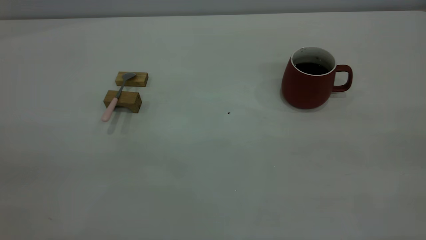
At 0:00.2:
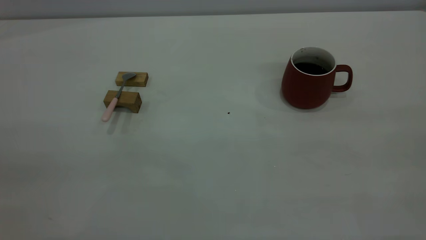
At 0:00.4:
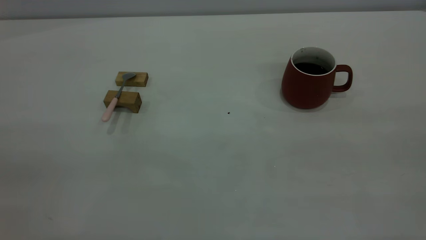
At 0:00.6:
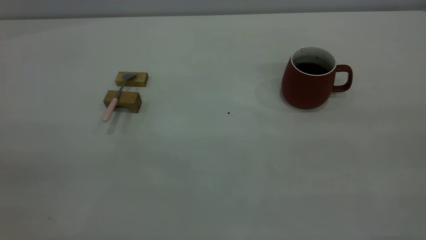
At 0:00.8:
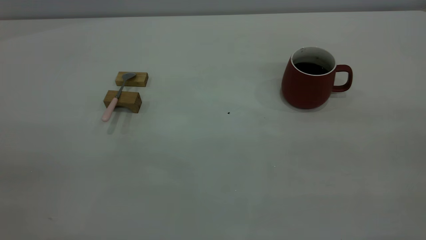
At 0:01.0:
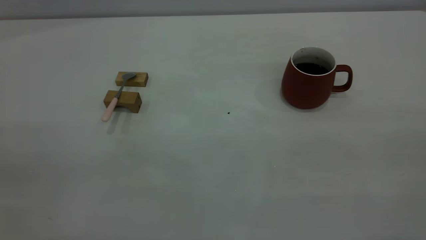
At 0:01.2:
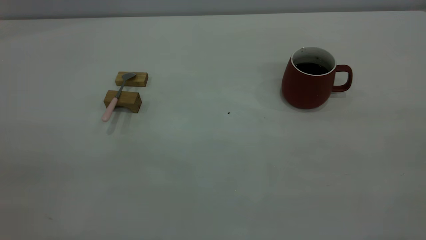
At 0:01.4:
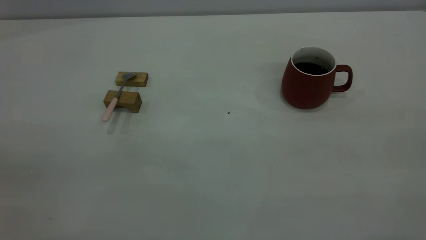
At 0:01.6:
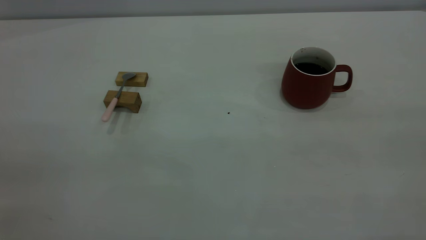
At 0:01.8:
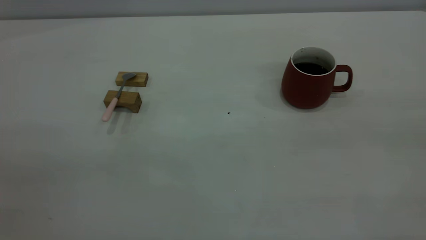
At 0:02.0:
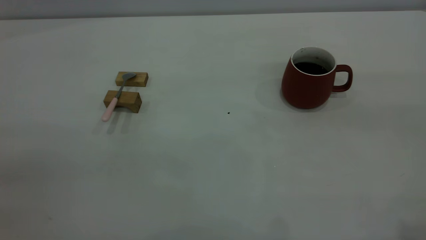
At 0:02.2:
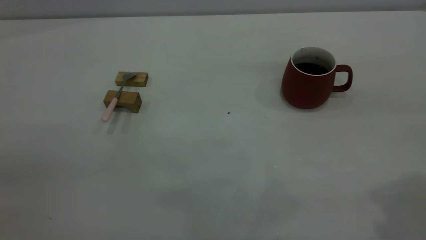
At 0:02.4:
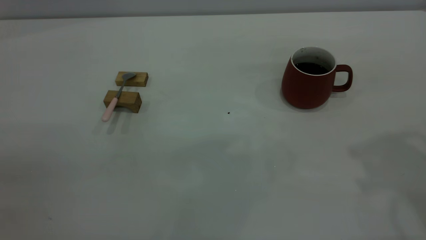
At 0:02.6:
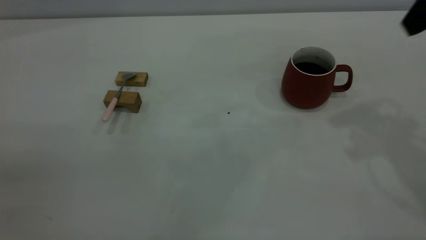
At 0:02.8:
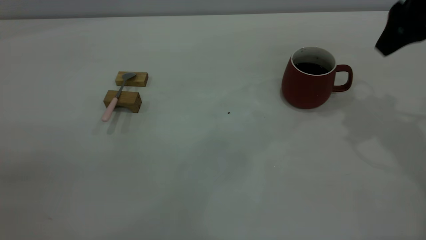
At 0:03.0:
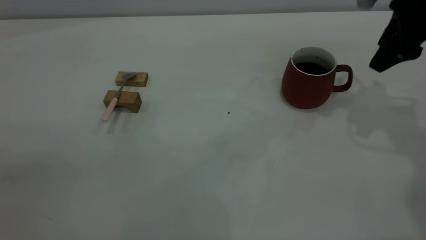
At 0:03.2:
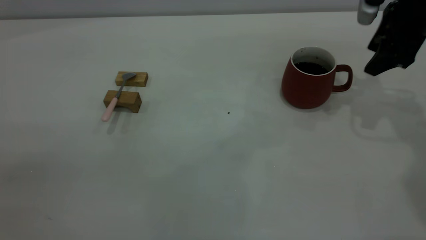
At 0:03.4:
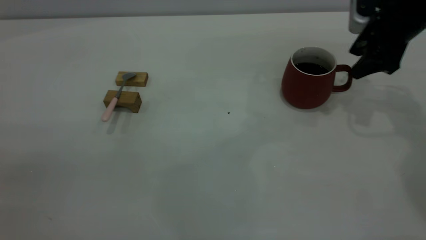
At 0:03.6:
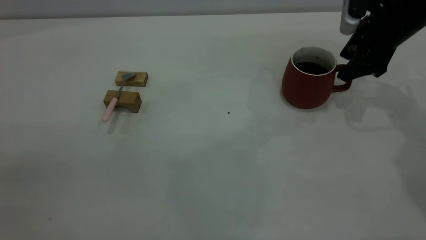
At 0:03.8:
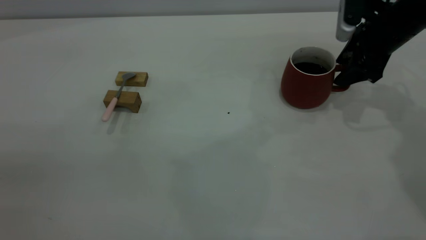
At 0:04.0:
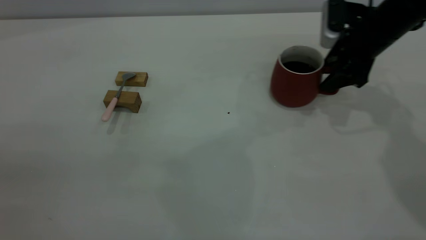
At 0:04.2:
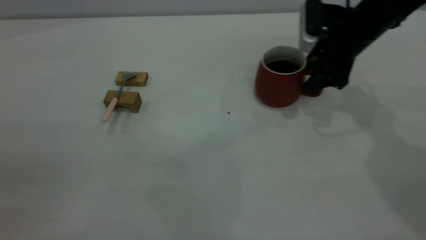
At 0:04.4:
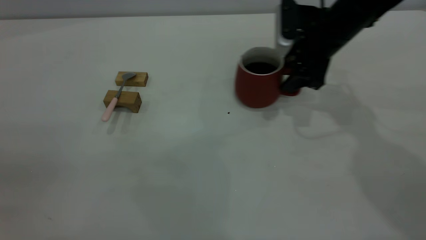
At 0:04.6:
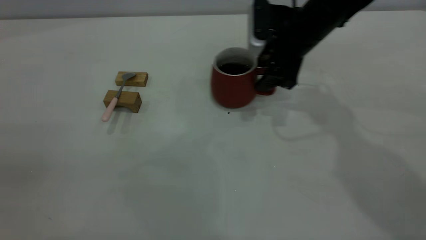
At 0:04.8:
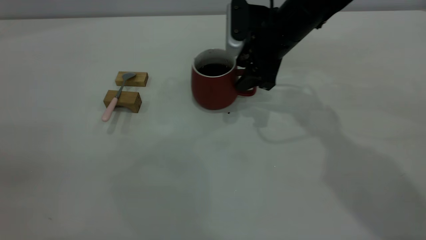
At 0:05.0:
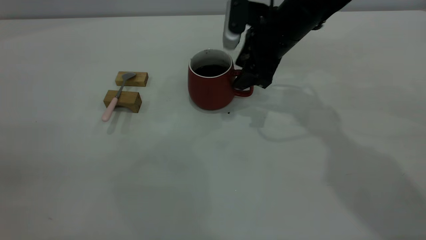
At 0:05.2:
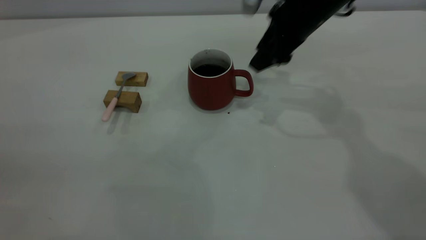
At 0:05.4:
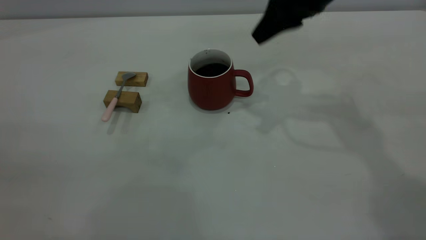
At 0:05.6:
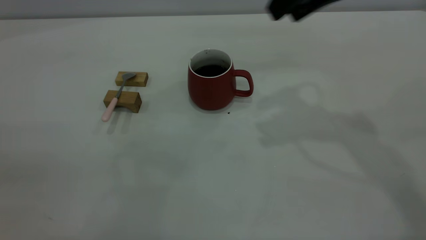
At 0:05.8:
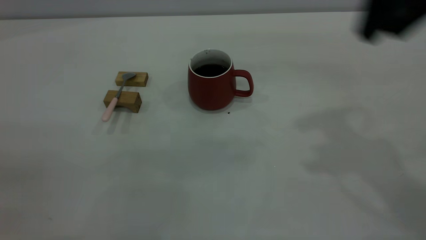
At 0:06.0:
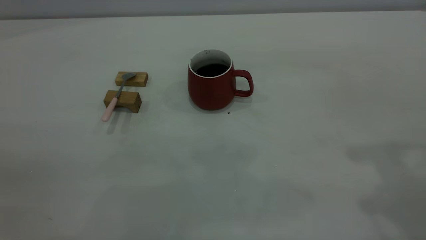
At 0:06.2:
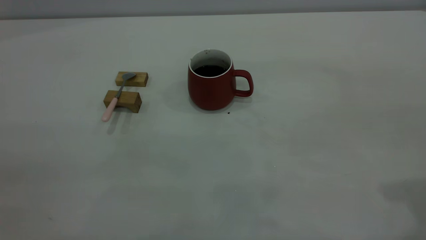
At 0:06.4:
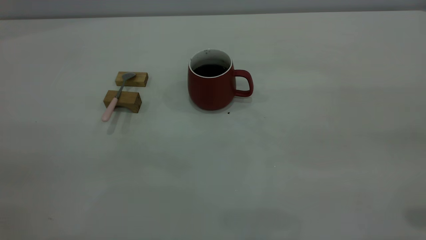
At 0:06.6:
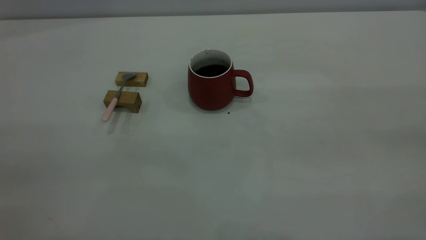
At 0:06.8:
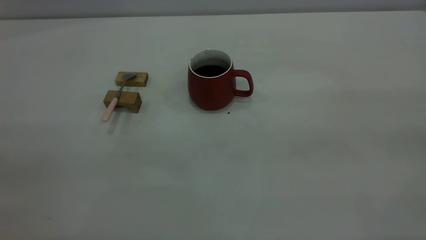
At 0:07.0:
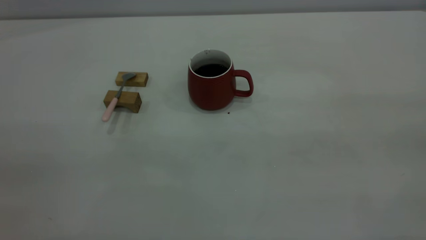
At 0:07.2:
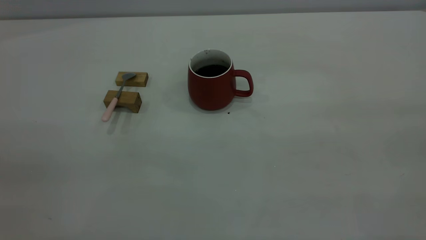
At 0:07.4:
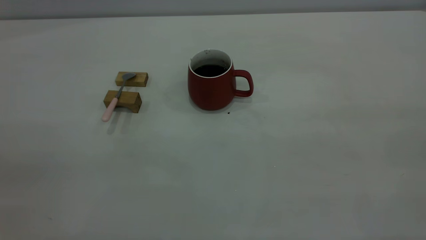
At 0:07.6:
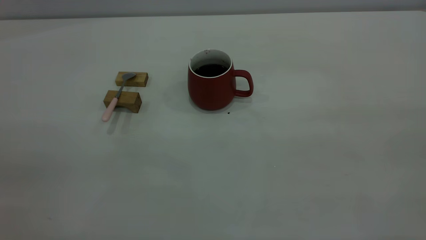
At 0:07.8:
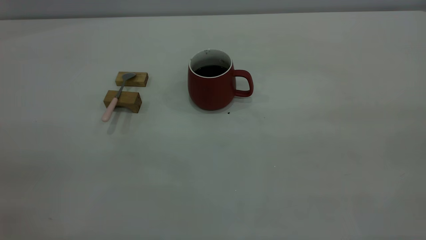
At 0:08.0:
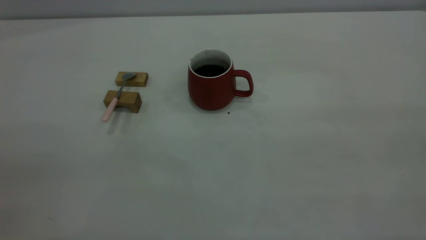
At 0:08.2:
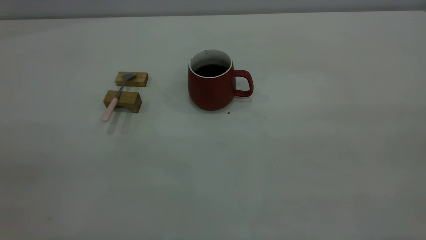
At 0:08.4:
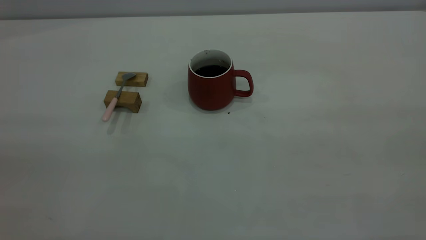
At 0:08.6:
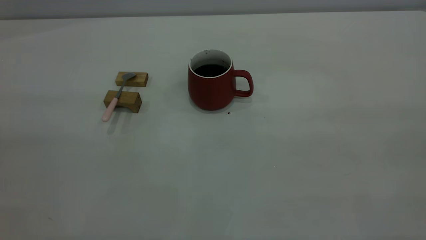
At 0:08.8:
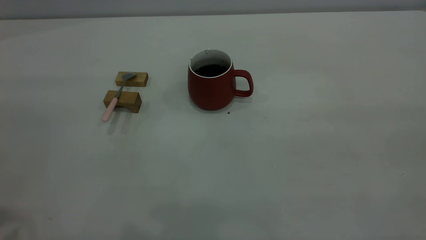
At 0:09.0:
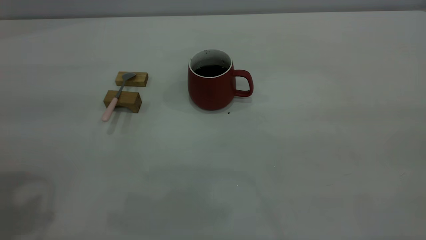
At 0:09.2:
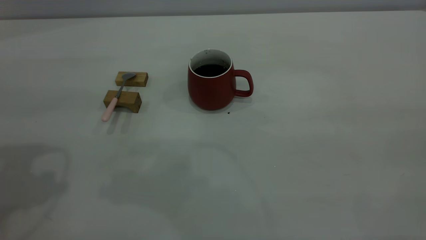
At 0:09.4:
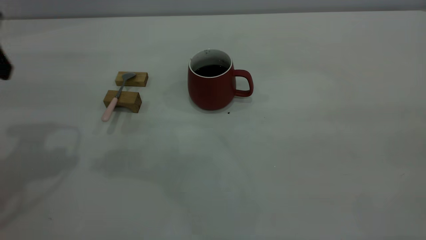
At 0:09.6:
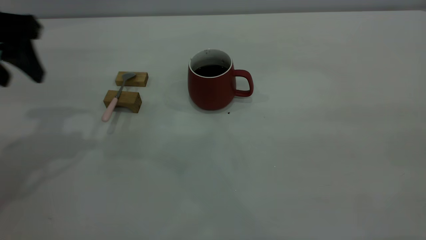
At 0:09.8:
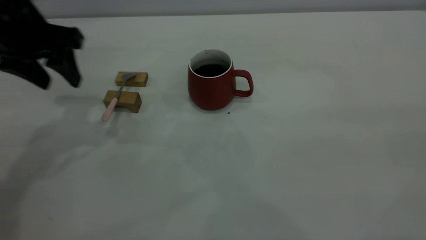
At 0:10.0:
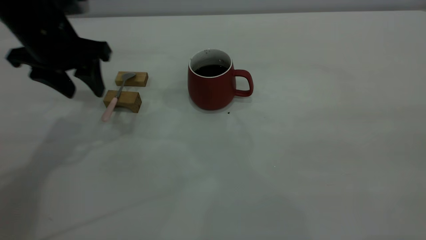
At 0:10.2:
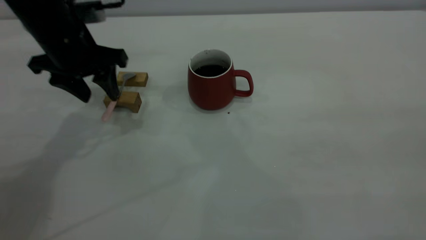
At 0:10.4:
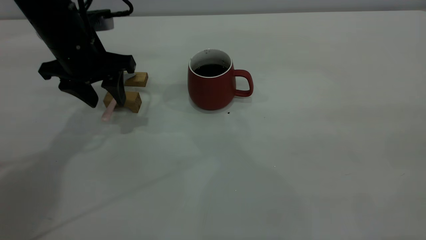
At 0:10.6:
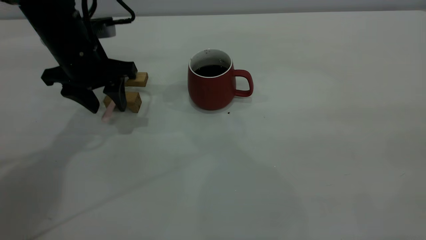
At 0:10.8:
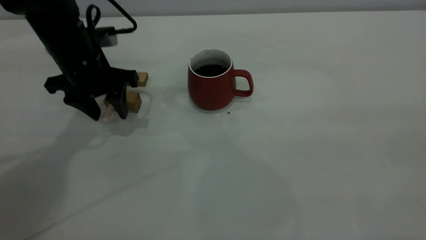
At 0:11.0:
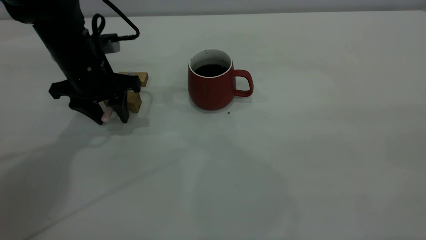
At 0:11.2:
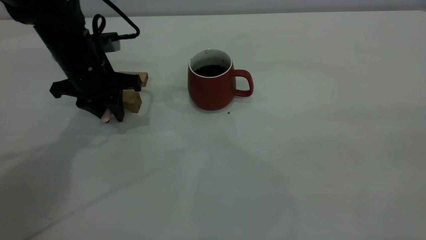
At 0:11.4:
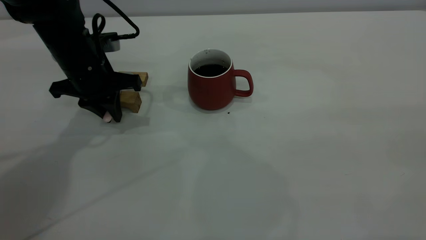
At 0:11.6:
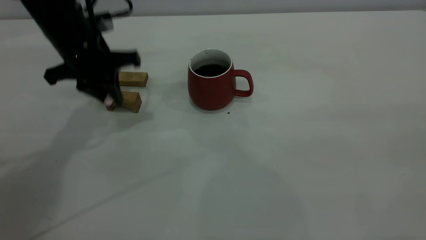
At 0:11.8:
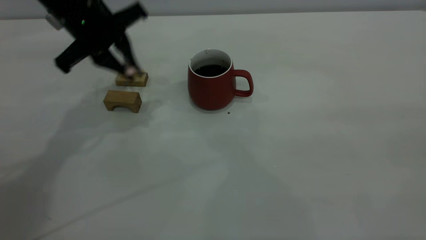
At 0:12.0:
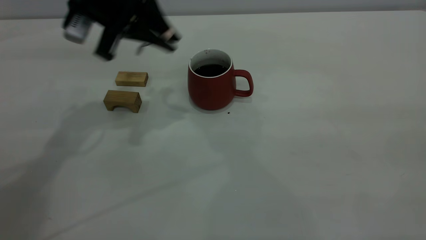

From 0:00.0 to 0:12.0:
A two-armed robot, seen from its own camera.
Step, from 0:00.0 to 0:05.2: Move the cup with coffee to the center of view.
Step, from 0:05.4 to 0:11.6: Pick up the spoon.
From 0:01.6 to 0:03.0: The right gripper moves forward and downward, about 40 cm.
From 0:03.0 to 0:04.4: The right gripper shifts approximately 15 cm to the left and downward.
From 0:04.4 to 0:06.0: The right gripper goes about 30 cm backward and upward, and closes its fingers.
From 0:09.0 to 0:10.4: The left gripper is displaced forward, downward and to the right by some 30 cm.
From 0:10.4 to 0:12.0: The left gripper shifts about 10 cm upward, and closes.

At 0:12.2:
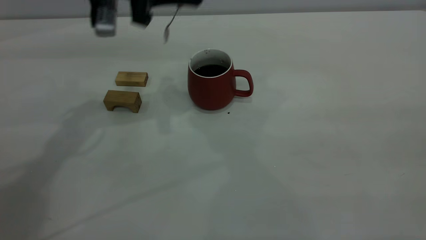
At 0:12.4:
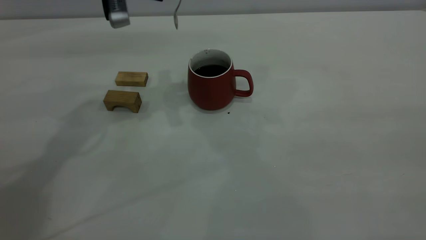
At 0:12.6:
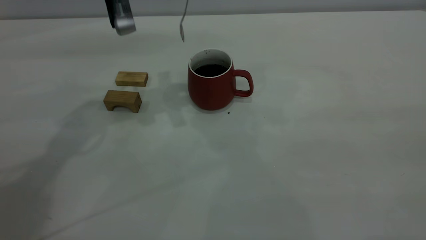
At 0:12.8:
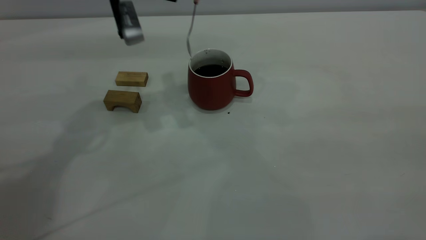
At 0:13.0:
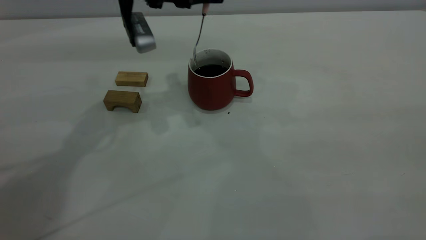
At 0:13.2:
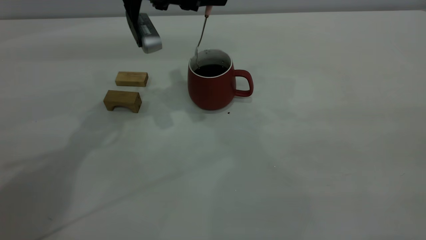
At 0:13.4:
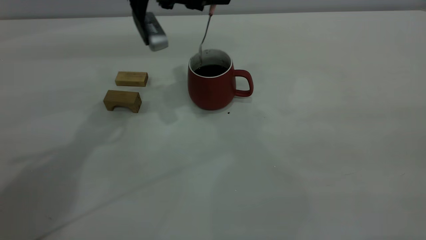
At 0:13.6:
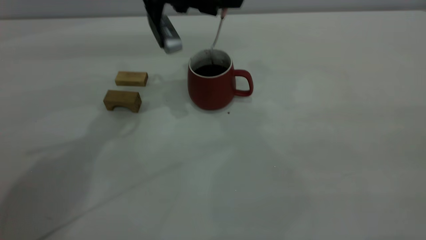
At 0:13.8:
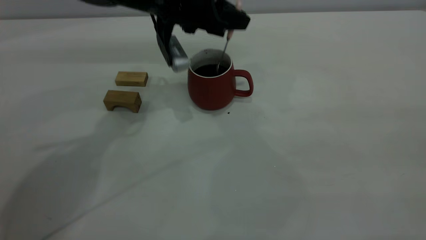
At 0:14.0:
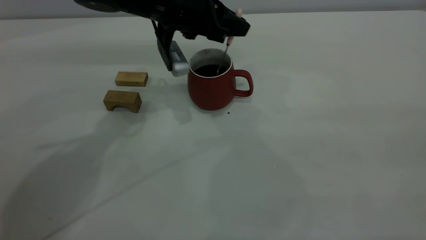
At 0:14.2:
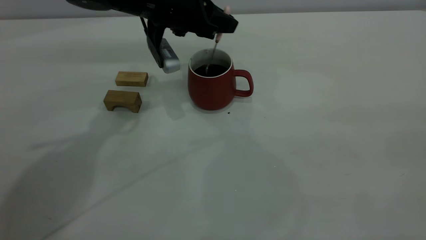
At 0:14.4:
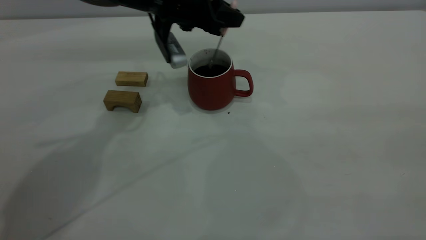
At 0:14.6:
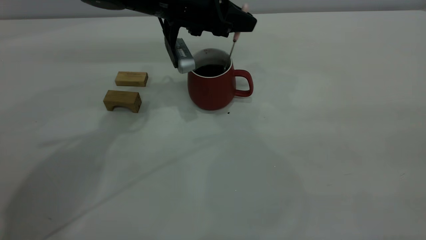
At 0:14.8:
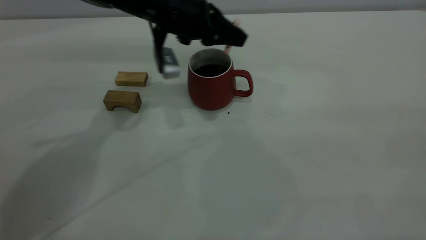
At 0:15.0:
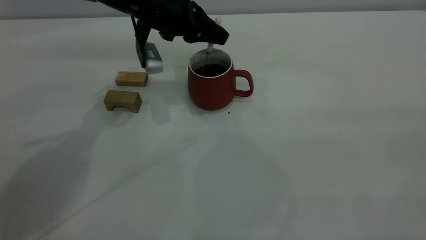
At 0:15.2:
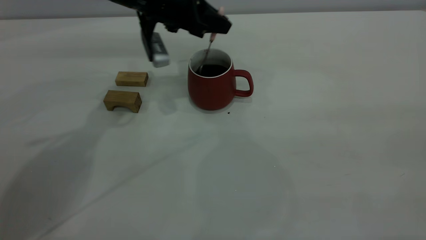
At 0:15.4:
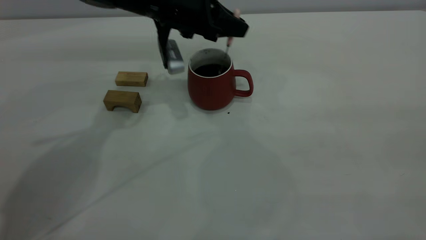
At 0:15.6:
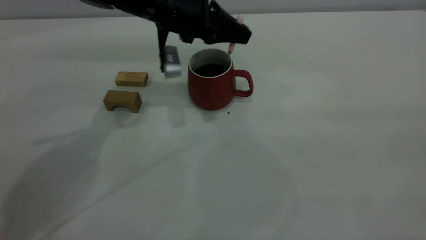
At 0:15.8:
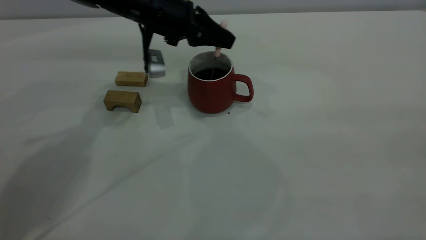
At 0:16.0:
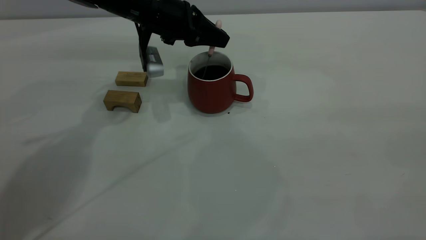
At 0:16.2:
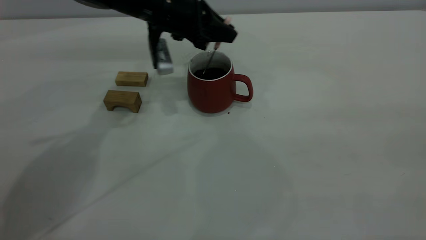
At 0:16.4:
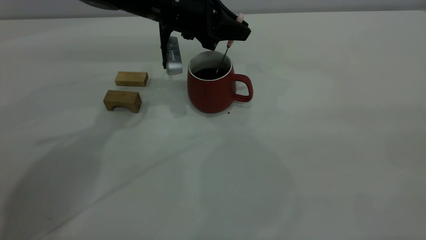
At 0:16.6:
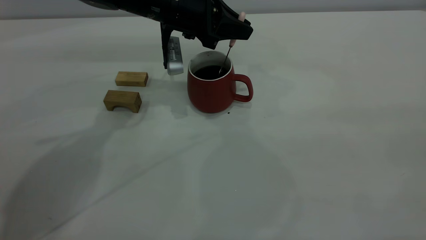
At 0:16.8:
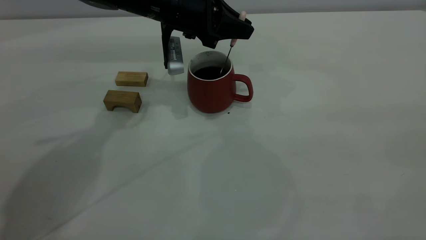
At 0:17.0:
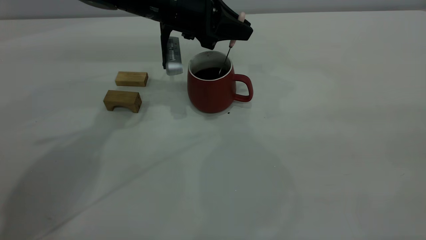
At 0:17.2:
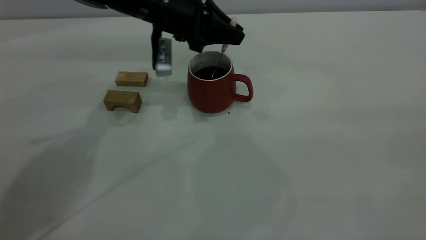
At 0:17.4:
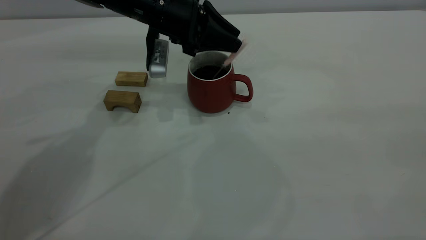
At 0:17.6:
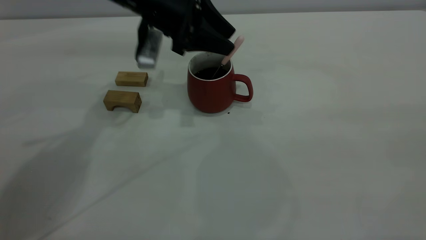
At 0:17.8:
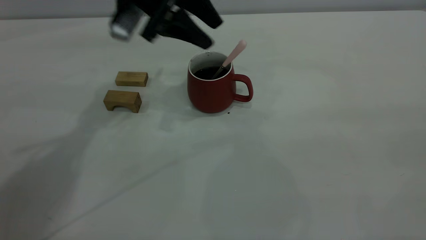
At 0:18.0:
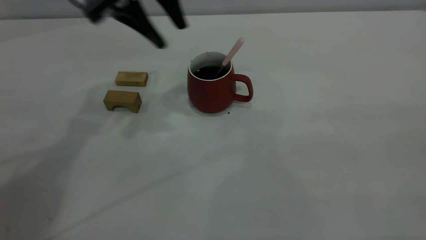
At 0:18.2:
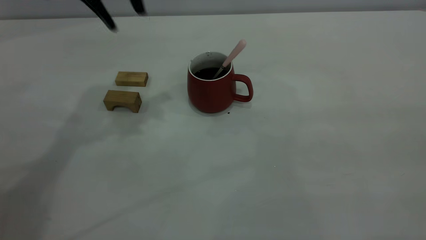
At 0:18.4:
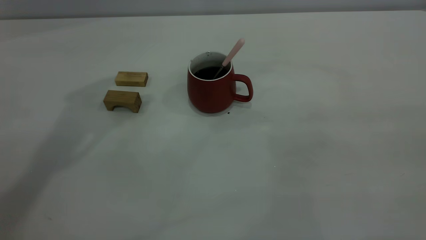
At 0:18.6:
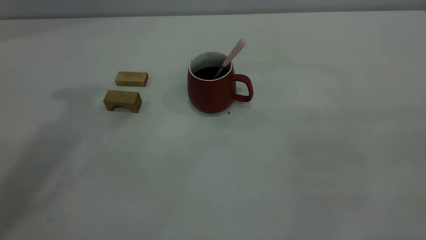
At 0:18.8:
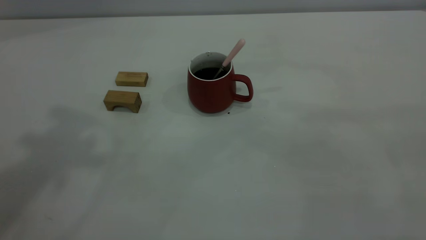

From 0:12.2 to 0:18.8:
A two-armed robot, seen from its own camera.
Step, from 0:12.2 to 0:17.8: Stir the coffee in the cup.
From 0:12.2 to 0:13.8: The left gripper is displaced downward and to the right by approximately 10 cm.
From 0:13.8 to 0:17.2: The grippers make only small movements.
From 0:17.2 to 0:18.8: The left gripper goes about 40 cm upward and backward, and opens its fingers.
